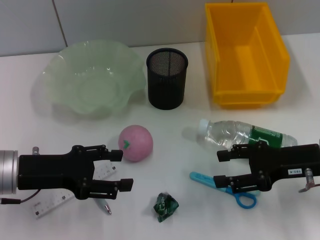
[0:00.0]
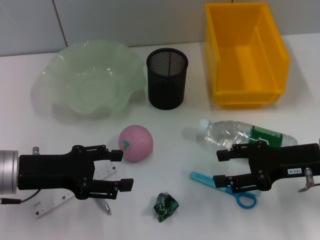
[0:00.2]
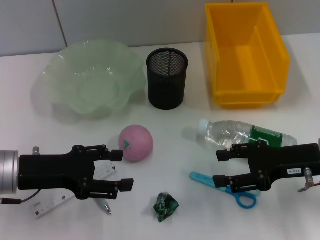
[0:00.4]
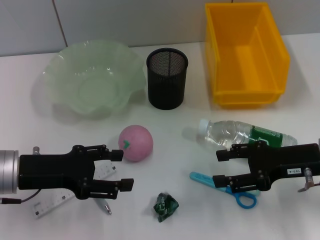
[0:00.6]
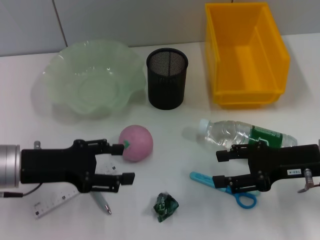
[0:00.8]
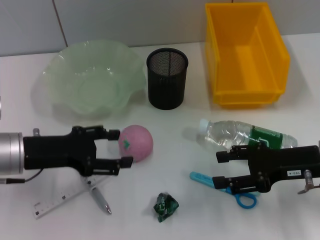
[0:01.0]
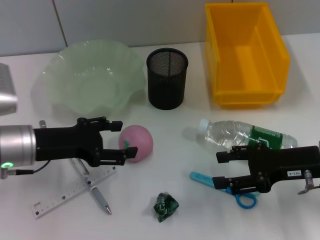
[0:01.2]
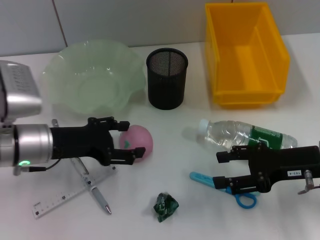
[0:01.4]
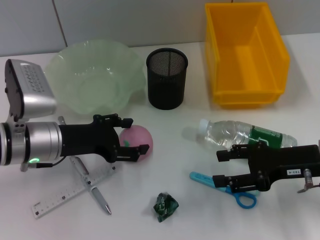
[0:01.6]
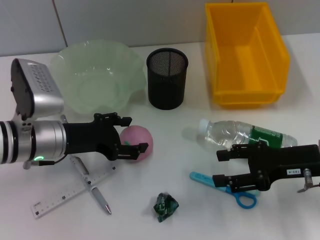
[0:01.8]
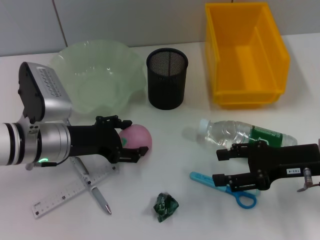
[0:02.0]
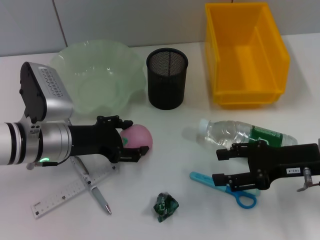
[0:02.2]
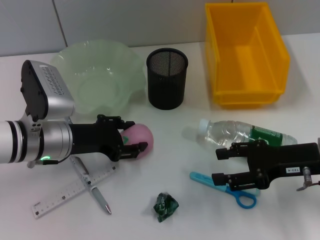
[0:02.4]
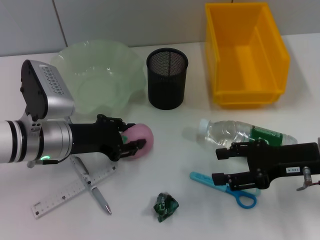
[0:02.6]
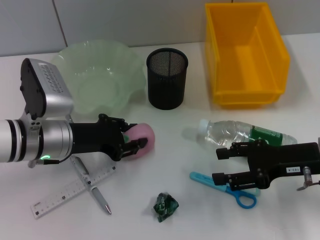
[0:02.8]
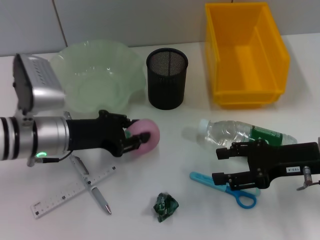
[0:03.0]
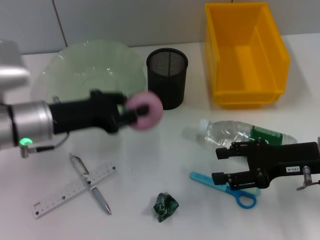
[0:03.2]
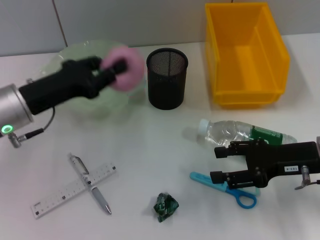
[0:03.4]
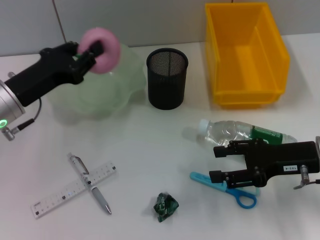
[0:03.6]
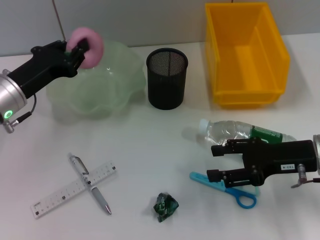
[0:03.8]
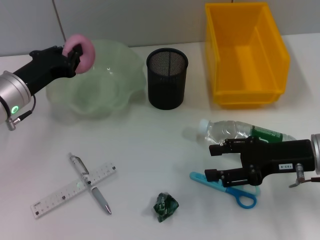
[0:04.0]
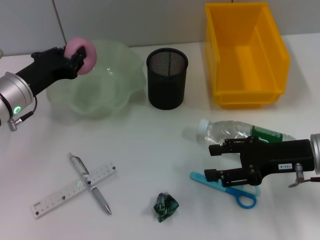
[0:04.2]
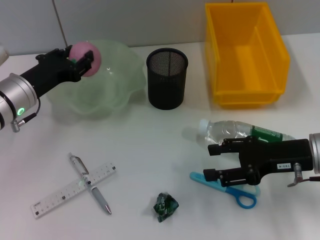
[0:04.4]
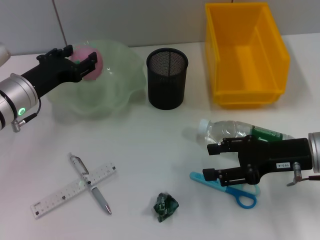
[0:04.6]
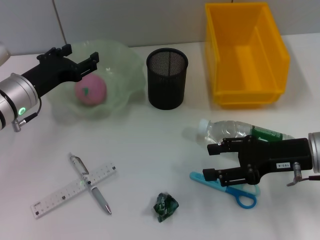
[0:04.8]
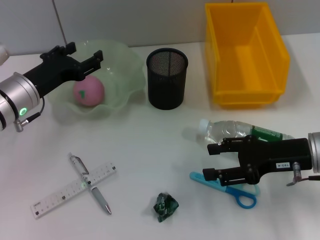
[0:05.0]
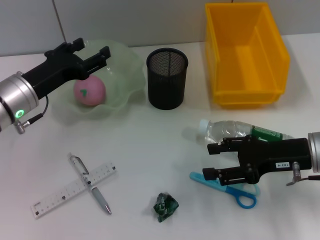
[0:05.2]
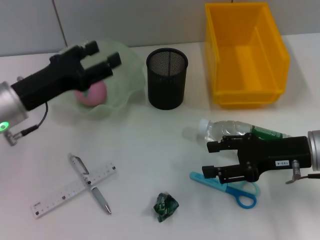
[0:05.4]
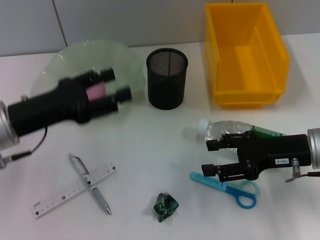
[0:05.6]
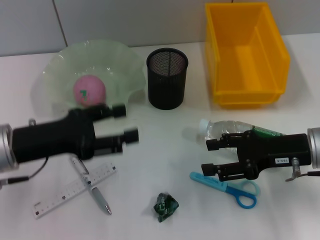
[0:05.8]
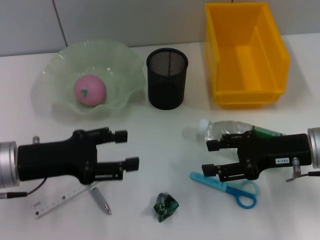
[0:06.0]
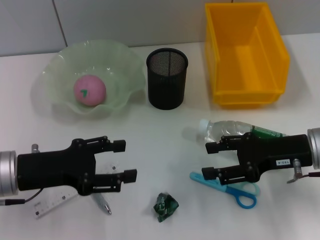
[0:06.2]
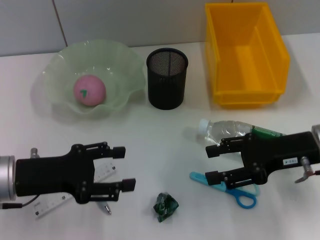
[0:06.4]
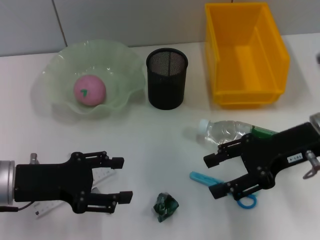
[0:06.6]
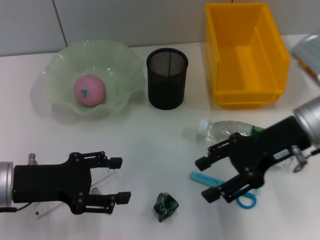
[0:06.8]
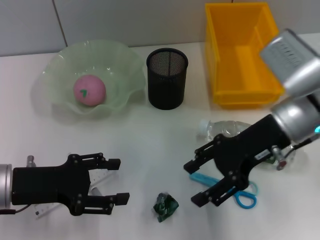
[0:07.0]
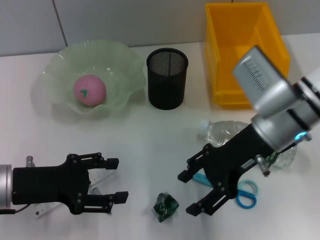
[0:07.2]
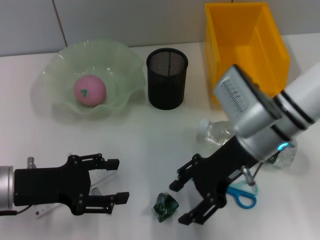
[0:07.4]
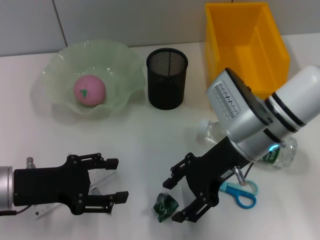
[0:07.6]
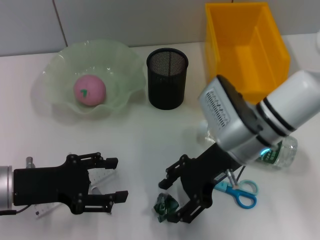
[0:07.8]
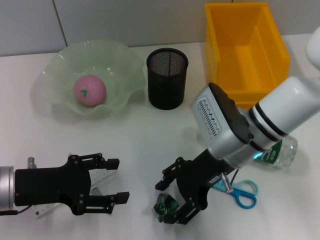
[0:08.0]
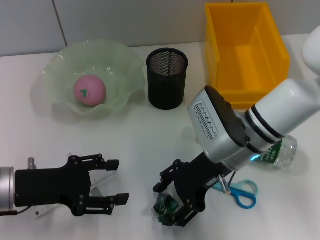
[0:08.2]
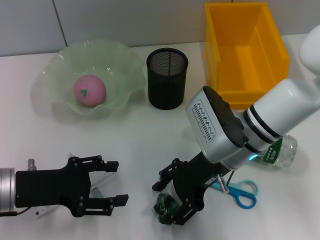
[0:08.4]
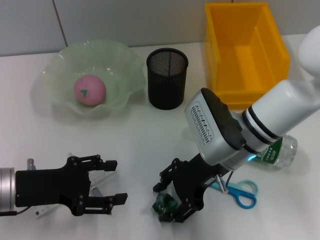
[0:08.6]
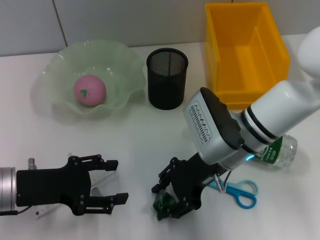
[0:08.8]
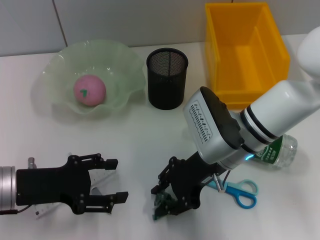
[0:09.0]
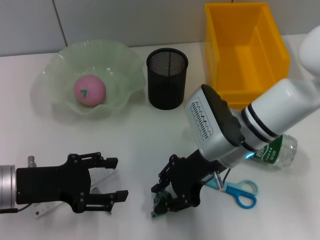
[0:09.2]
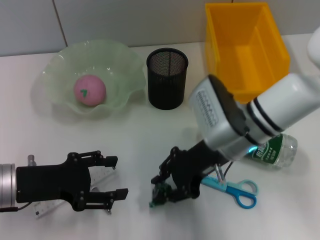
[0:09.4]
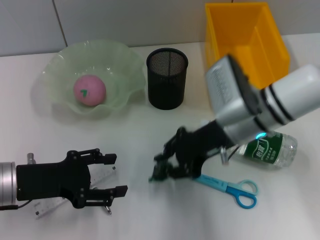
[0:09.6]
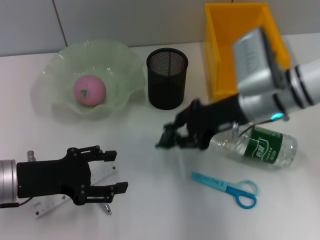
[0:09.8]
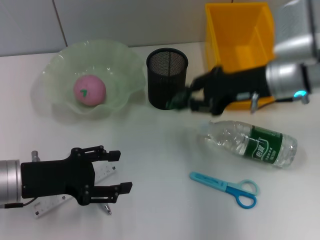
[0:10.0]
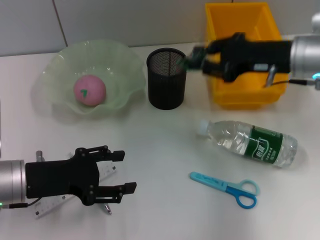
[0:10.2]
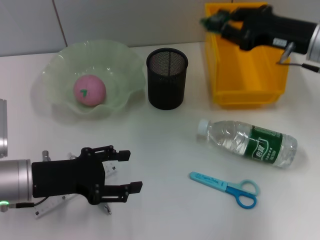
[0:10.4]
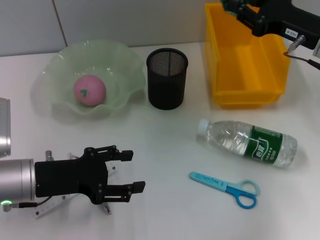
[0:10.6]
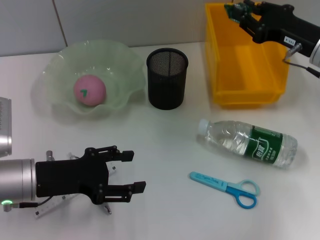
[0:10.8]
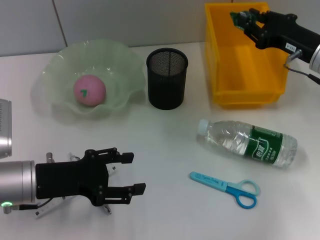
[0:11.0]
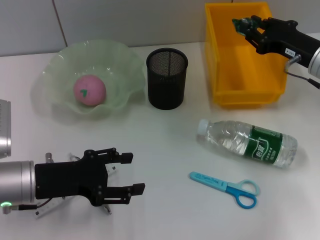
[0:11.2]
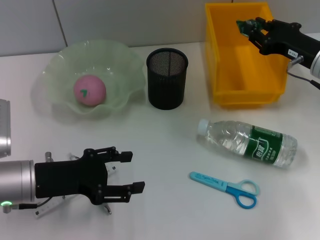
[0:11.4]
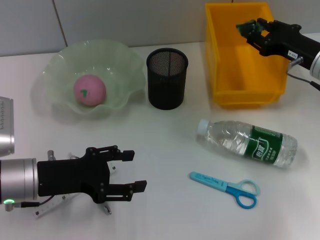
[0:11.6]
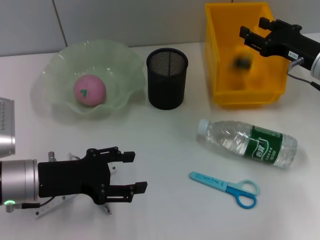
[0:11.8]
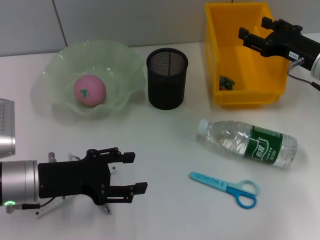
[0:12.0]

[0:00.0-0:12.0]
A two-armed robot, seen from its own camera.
Step, 0:00.0 to 0:02.6: Grab the peach with the left hand.
Step, 0:02.8 to 0:05.0: Place the peach into the fruit bowl with the left hand.
Step, 0:05.2 to 0:09.0: Grab the plastic with the right hand.
Step, 0:09.2 to 0:12.0: Place the plastic into the trash can with the right hand.
0:00.0 to 0:01.6: The left gripper moves approximately 5 cm.
0:01.6 to 0:03.0: The left gripper closes its fingers.
0:03.0 to 0:04.4: The left gripper changes place by some 5 cm.
0:04.4 to 0:06.0: The left gripper shifts about 10 cm backward, and opens up.
0:06.0 to 0:07.6: The right gripper heads to the left, covering about 10 cm.
0:07.6 to 0:09.0: The grippers stay close to where they were, moving slightly.
0:09.0 to 0:10.4: The right gripper is displaced to the right and upward by approximately 15 cm, and closes its fingers.
0:10.4 to 0:12.0: The right gripper goes some 5 cm downward, and opens.

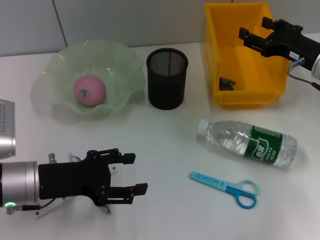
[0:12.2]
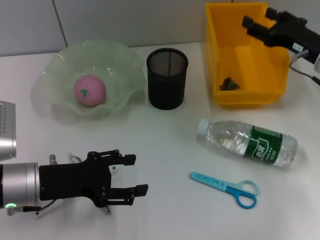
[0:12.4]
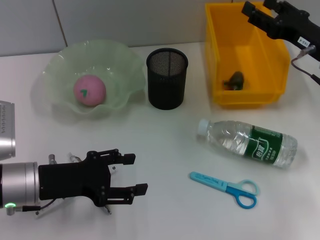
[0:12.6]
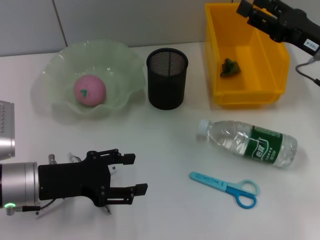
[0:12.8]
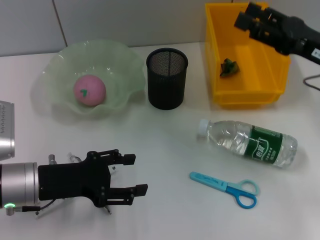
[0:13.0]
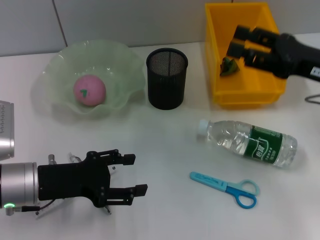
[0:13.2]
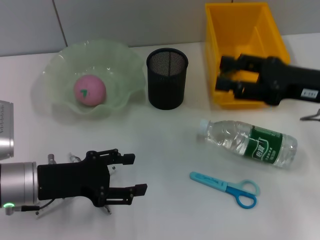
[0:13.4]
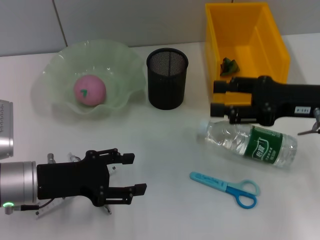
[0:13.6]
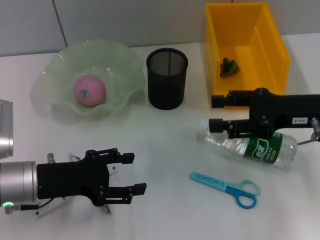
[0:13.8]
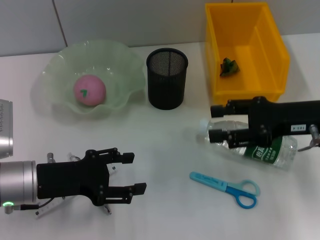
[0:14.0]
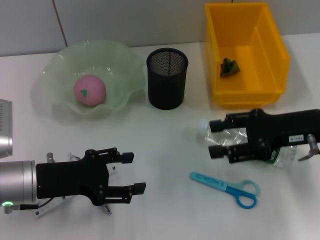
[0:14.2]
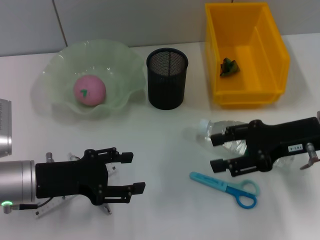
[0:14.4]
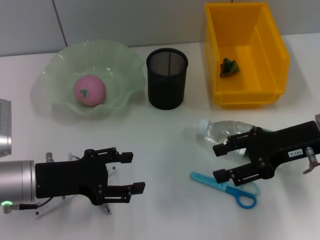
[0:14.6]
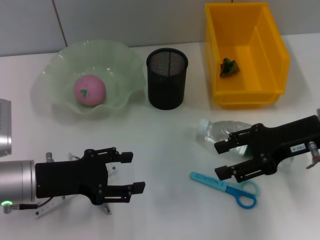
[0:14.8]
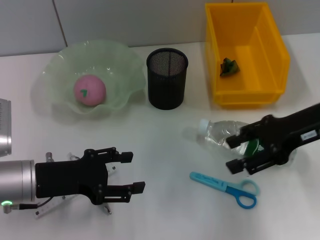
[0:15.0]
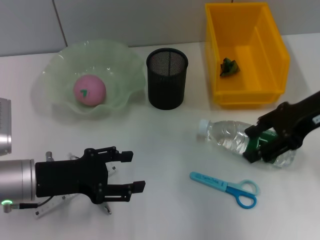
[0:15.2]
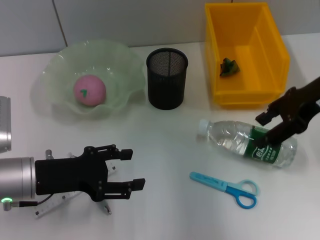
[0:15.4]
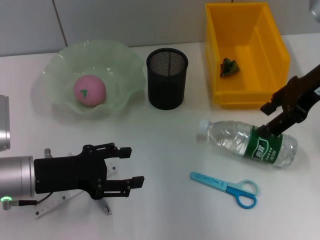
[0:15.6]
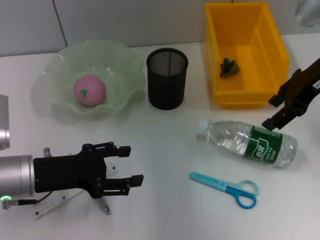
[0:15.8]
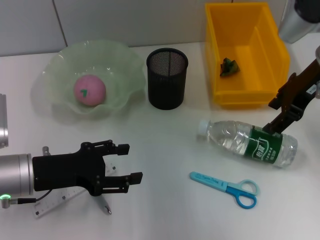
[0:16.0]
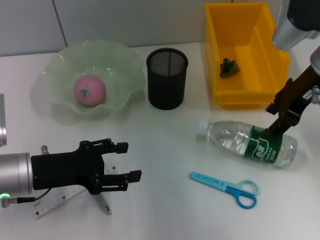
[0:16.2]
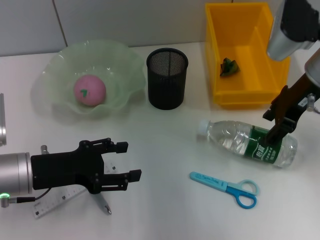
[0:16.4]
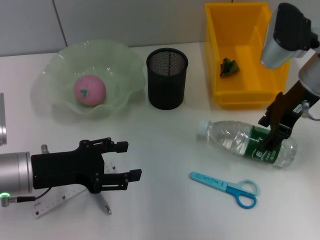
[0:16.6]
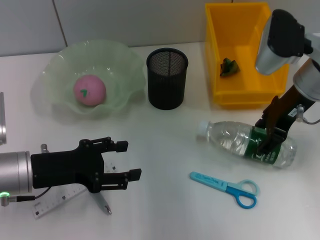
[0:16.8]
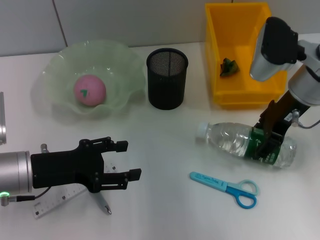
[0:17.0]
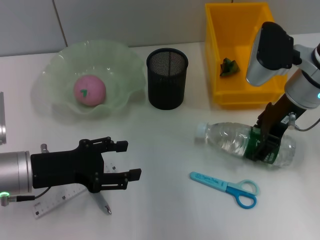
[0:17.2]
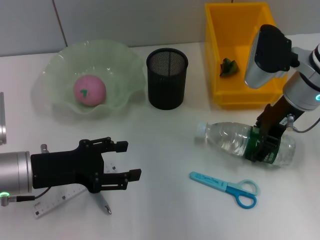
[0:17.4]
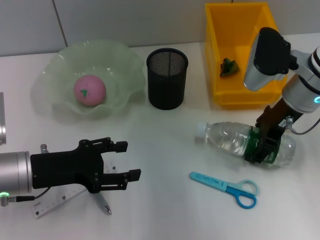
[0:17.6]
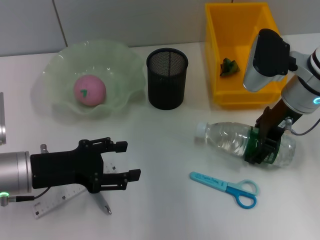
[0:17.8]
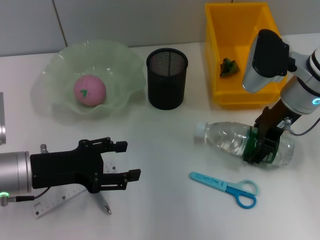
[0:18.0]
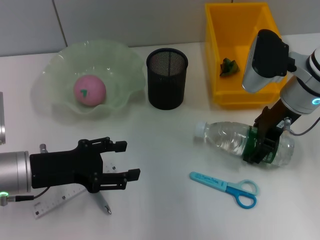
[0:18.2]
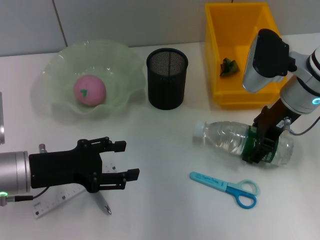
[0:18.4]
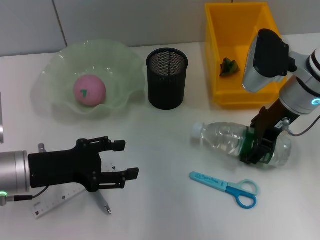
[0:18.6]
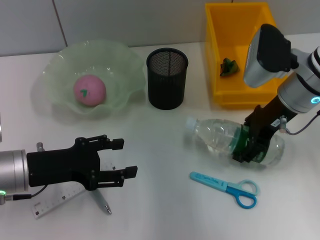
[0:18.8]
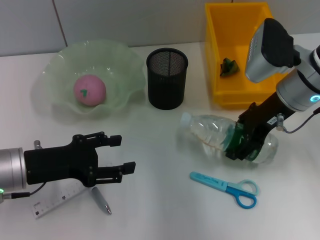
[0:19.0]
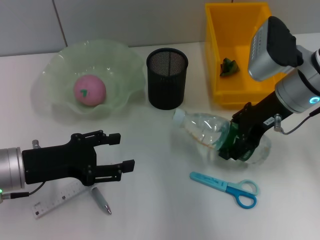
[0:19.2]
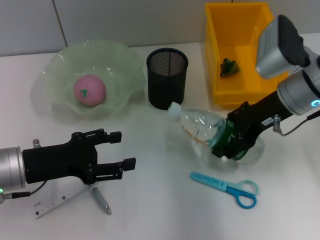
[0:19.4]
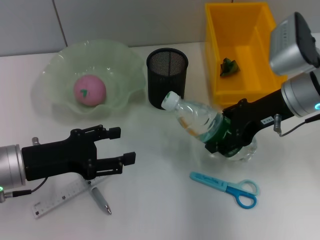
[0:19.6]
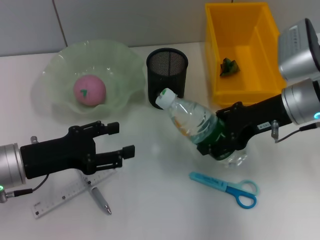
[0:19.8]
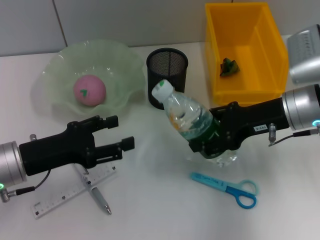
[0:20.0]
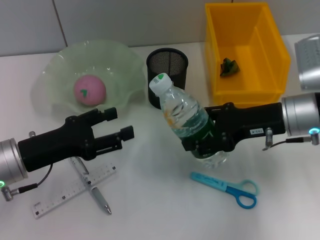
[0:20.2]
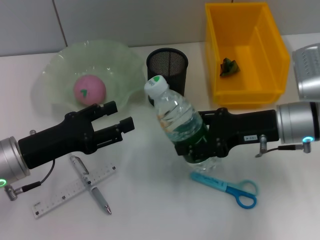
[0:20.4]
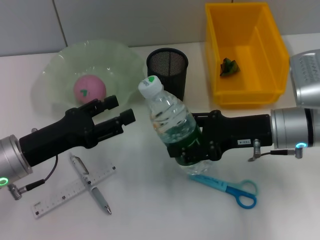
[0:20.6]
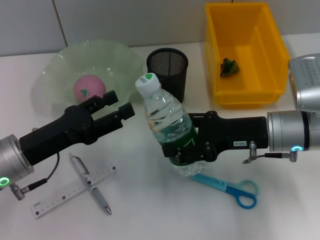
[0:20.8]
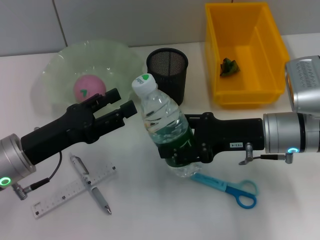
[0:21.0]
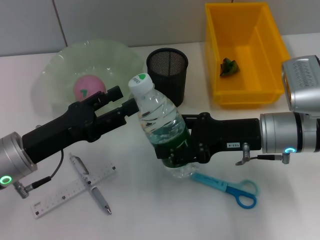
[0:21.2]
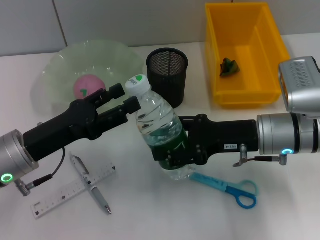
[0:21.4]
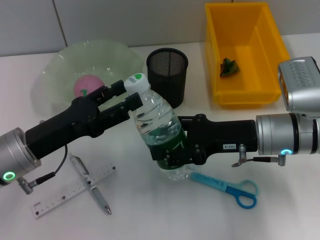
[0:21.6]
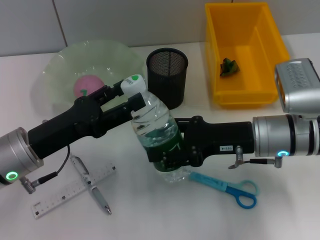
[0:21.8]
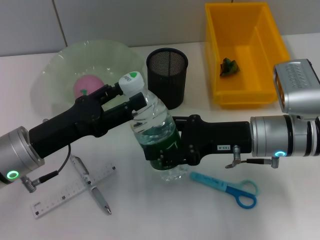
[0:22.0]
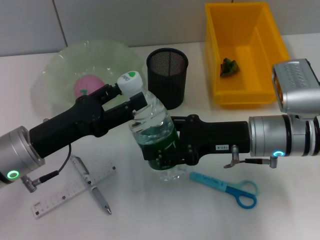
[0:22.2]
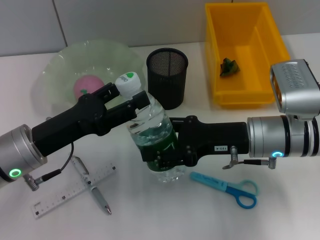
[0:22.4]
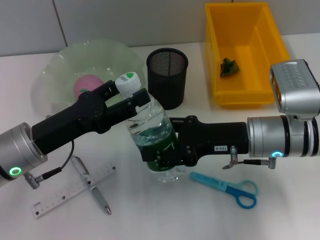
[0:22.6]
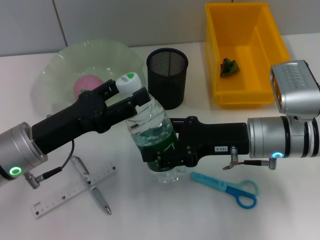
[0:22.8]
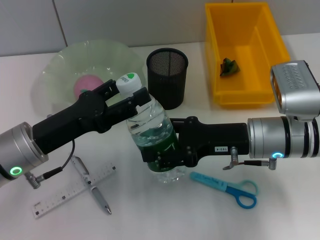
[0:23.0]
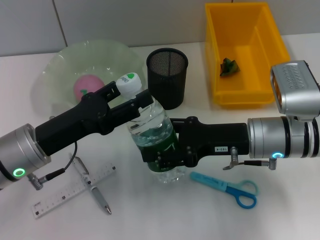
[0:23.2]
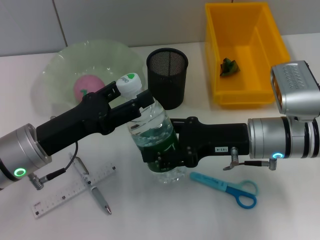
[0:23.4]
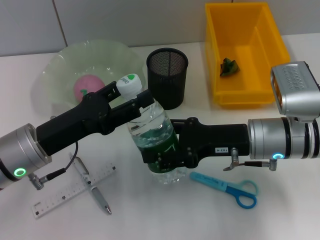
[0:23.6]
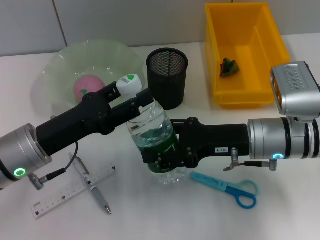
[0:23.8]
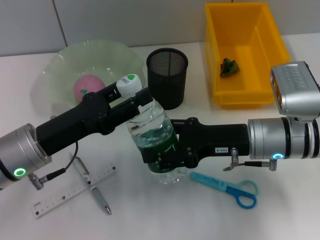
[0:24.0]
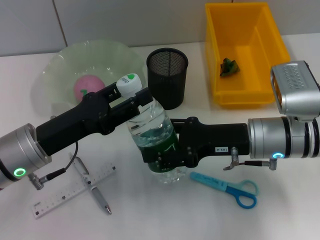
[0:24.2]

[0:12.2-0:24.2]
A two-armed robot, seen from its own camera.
Step, 0:12.2 to 0:18.4: Grab the water bottle with the right hand.
0:12.2 to 0:13.8: The right gripper moves backward, about 5 cm.
0:13.8 to 0:15.2: The right gripper goes roughly 5 cm upward.
0:15.2 to 0:16.6: The right gripper moves roughly 5 cm.
0:16.6 to 0:18.2: The grippers move only a little.
0:19.8 to 0:21.2: The right gripper ends up roughly 5 cm from where it was.
0:21.2 to 0:22.6: The grippers make only small movements.
0:22.6 to 0:24.2: Both grippers stay about where they are.
